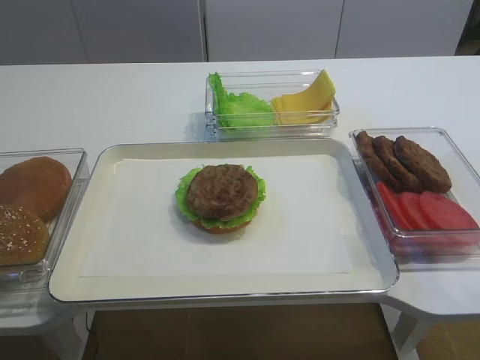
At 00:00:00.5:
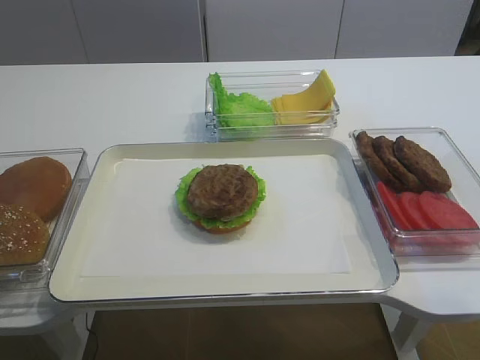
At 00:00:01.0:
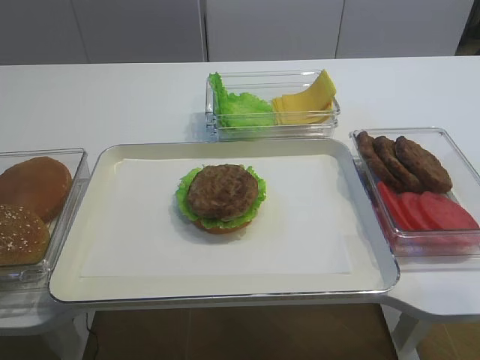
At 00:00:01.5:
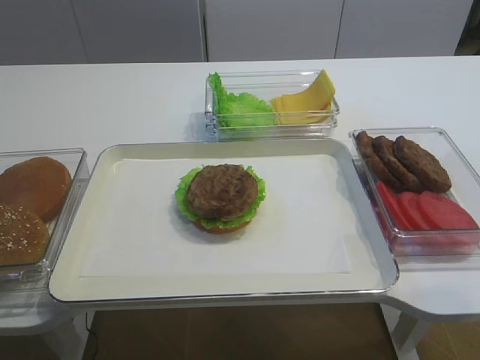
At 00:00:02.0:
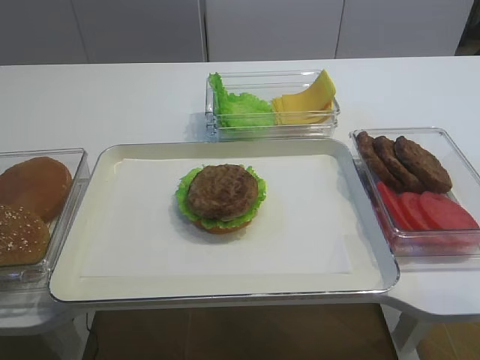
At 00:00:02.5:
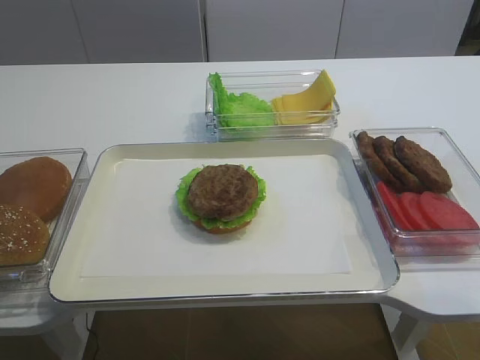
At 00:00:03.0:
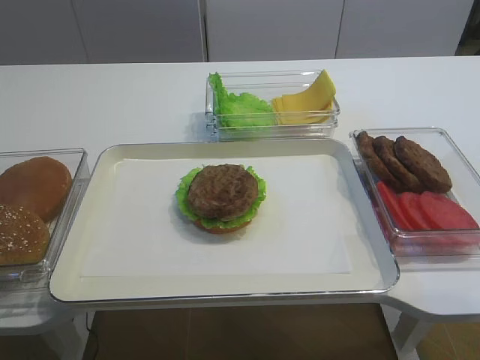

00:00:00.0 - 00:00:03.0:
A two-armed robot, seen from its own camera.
00:00:01.5 - 00:00:03.0: Both grippers stay put.

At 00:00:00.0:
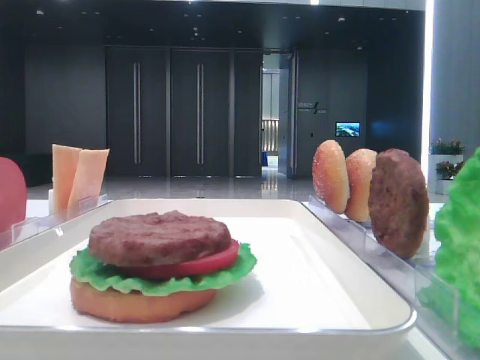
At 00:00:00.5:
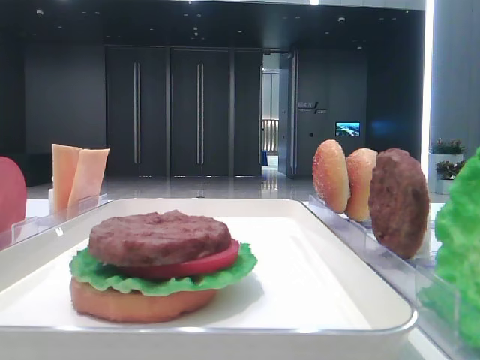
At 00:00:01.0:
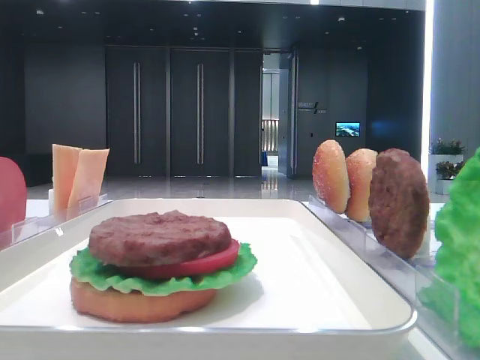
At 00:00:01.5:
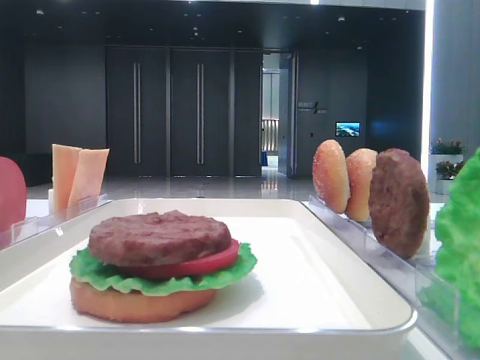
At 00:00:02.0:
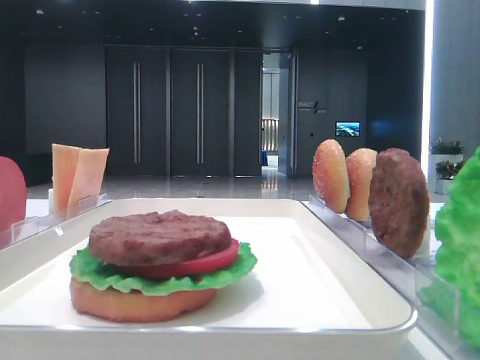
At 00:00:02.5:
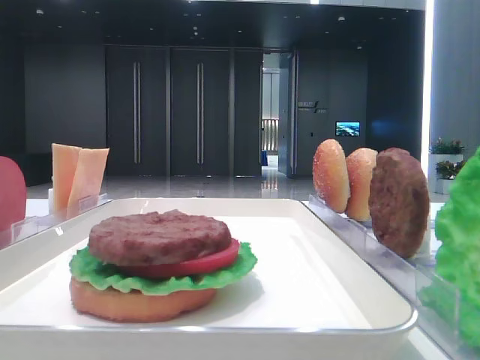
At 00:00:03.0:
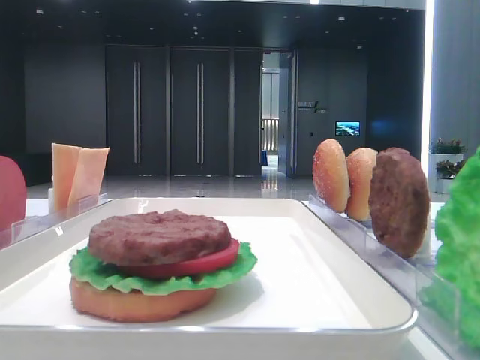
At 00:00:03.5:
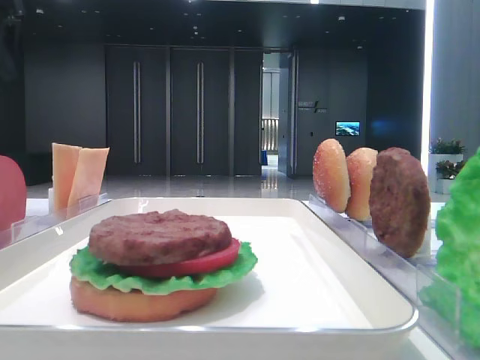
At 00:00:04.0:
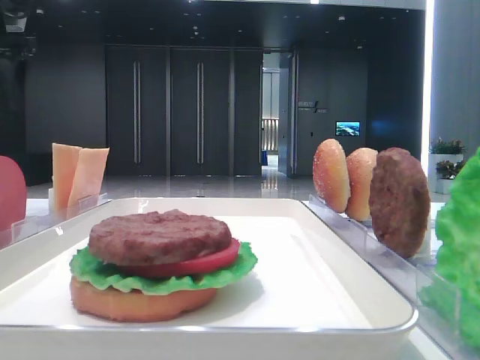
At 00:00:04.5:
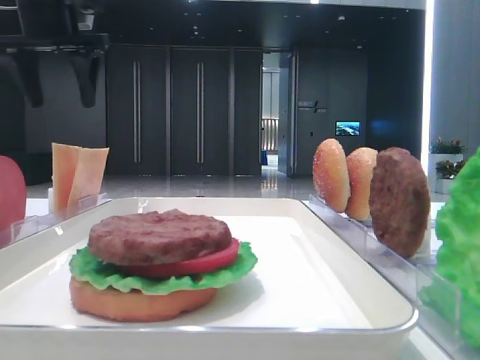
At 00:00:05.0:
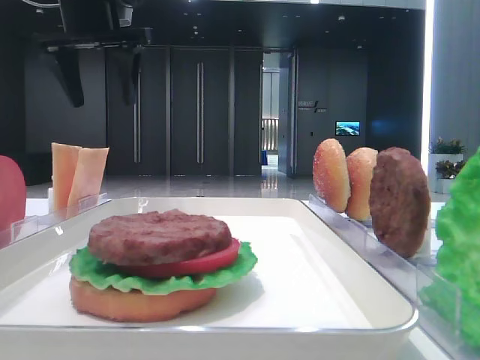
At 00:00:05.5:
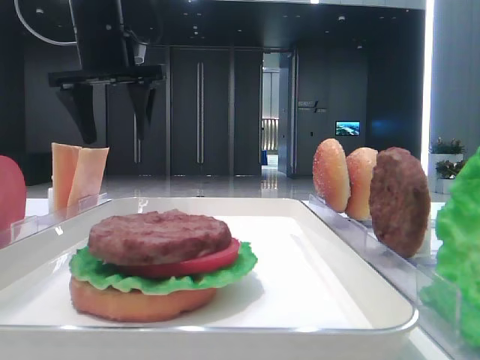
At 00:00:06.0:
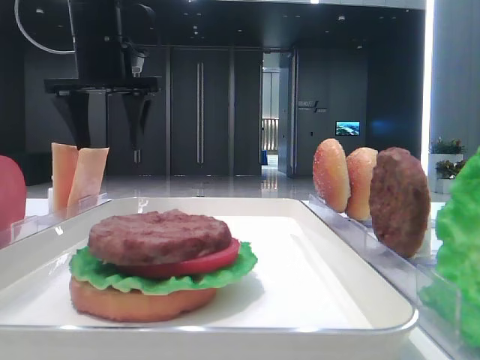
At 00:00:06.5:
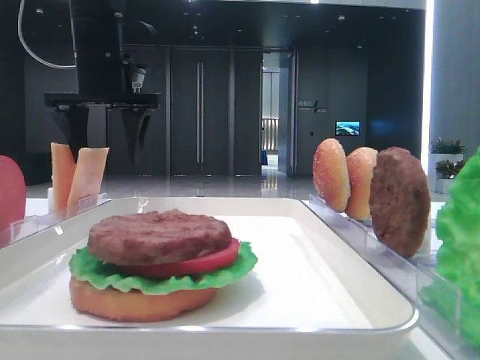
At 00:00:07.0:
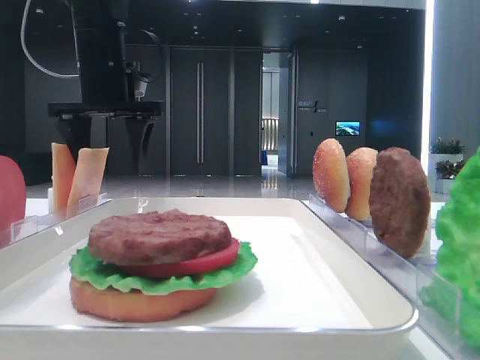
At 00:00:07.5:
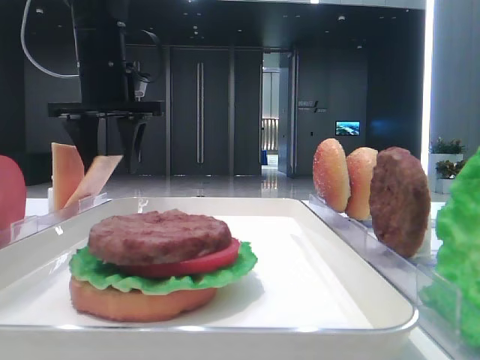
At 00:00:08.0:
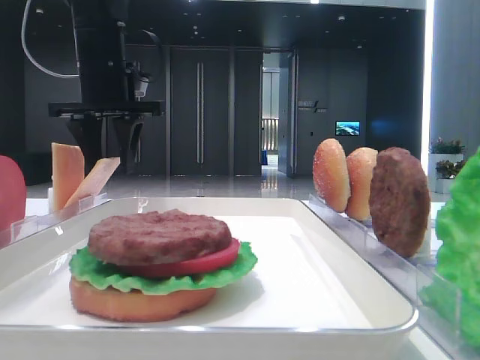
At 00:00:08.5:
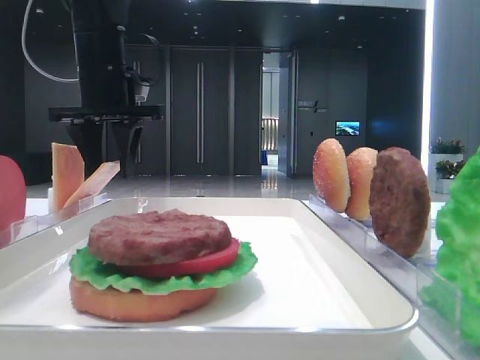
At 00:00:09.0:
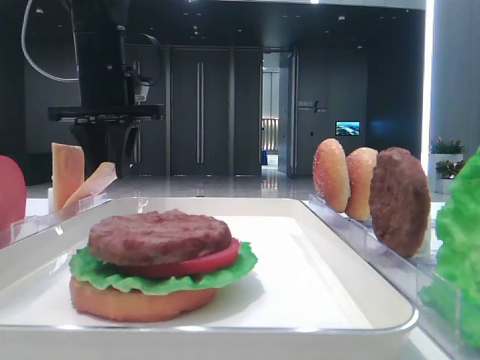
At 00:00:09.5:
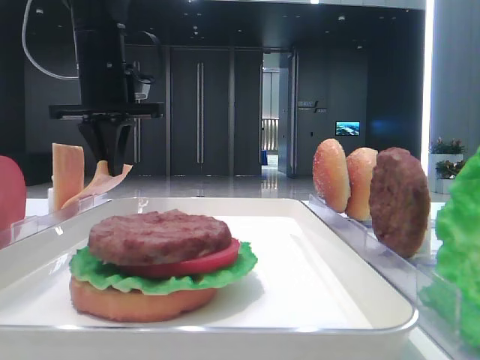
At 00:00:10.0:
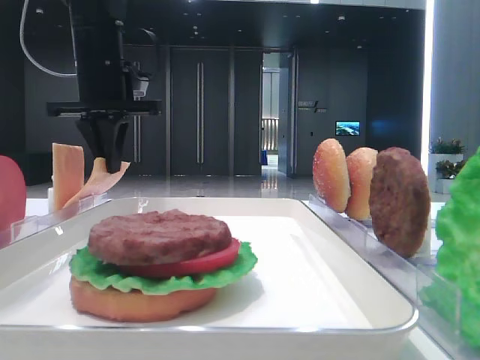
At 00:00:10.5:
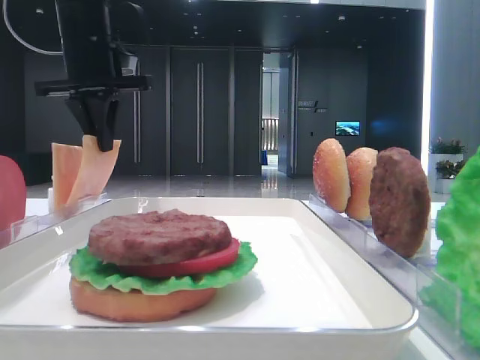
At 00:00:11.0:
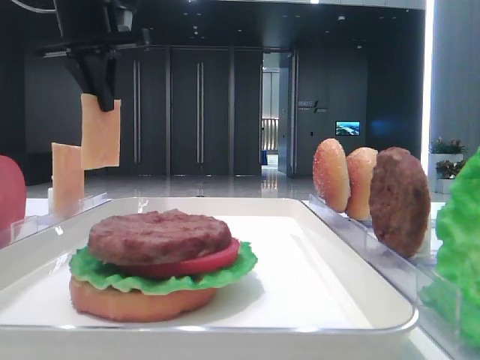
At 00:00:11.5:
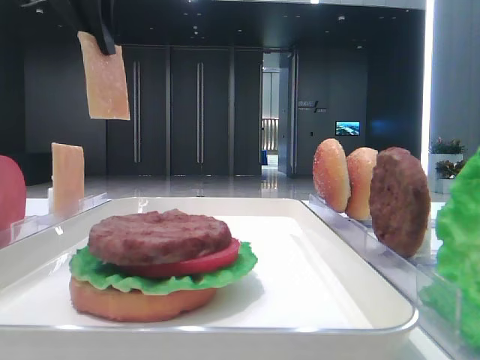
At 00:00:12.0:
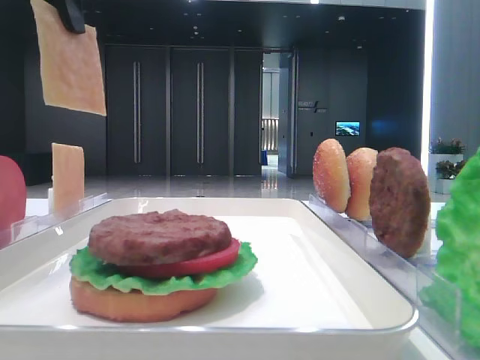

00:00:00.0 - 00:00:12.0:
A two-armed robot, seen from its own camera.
Step, 00:00:00.0 - 00:00:09.0: Pick up the cheese slice with the left hand.
00:00:02.0 - 00:00:04.0: The left gripper heads forward, covering some 30 cm.
00:00:04.0 - 00:00:06.0: The left gripper shifts approximately 15 cm to the right.
00:00:06.0 - 00:00:08.0: The left gripper closes up.
00:00:08.0 - 00:00:10.0: The left gripper closes its fingers.
00:00:10.0 - 00:00:12.0: The left gripper travels backward and upward by approximately 20 cm.

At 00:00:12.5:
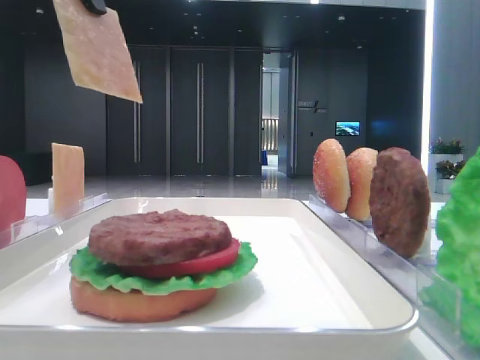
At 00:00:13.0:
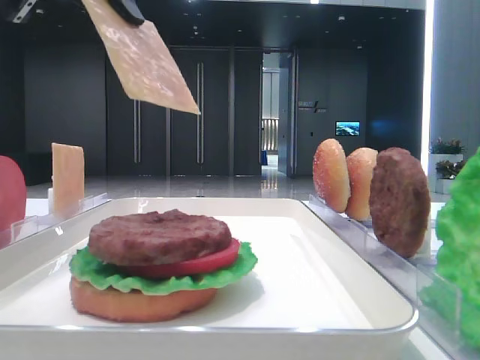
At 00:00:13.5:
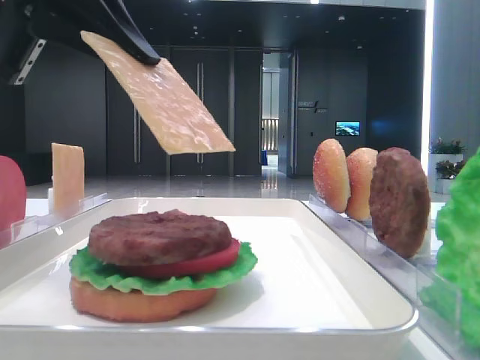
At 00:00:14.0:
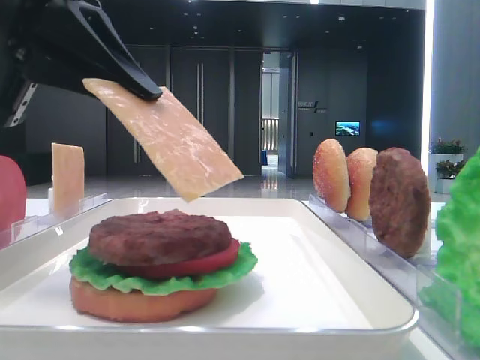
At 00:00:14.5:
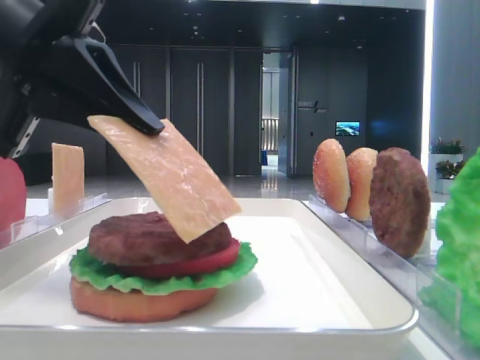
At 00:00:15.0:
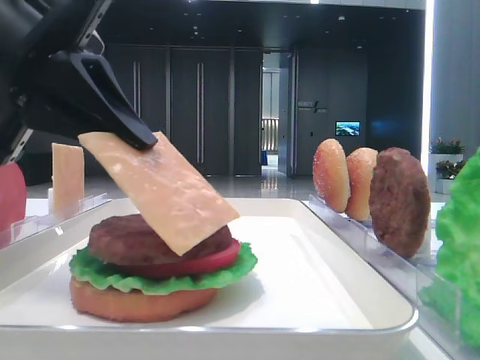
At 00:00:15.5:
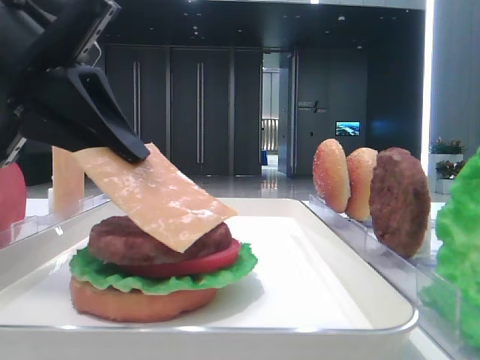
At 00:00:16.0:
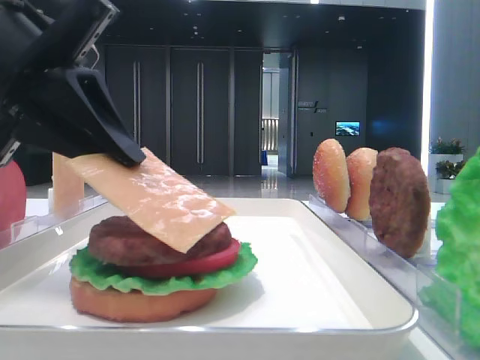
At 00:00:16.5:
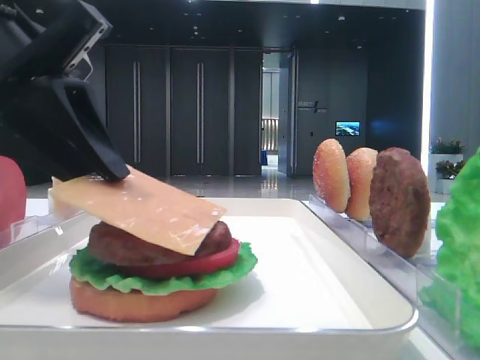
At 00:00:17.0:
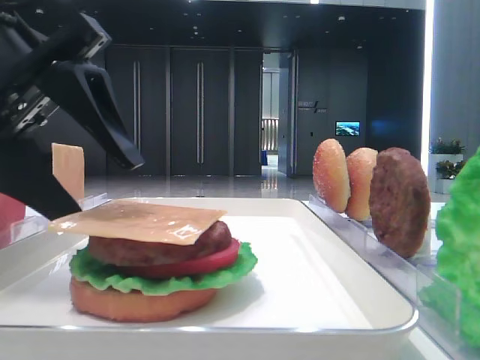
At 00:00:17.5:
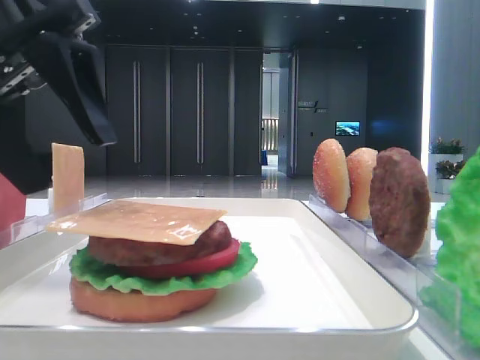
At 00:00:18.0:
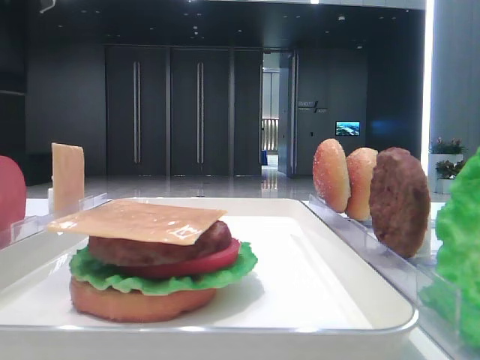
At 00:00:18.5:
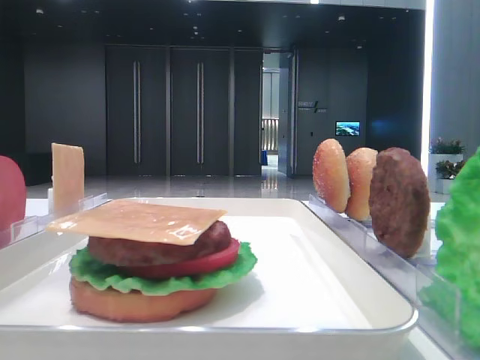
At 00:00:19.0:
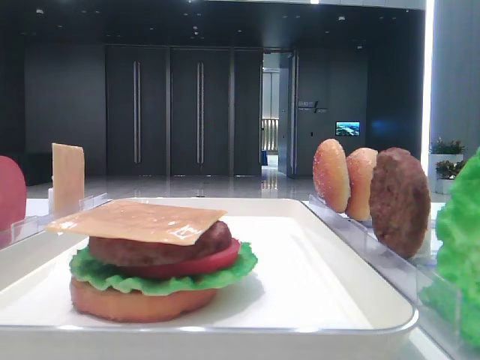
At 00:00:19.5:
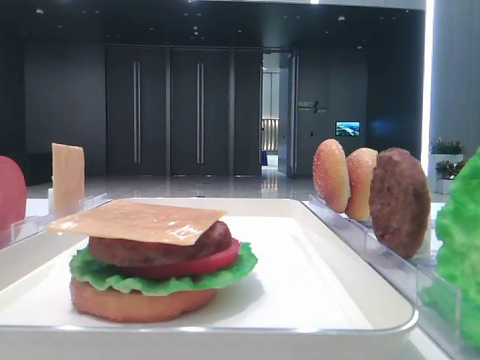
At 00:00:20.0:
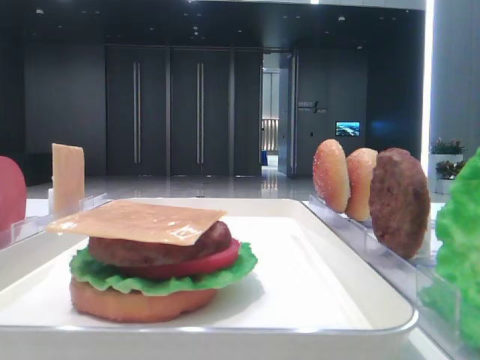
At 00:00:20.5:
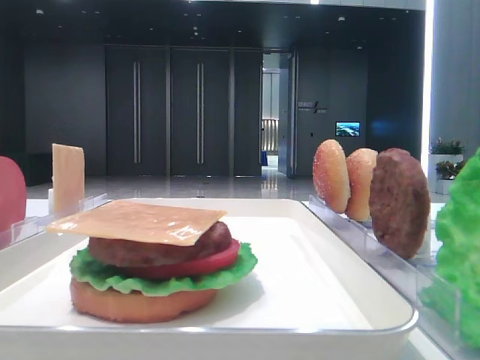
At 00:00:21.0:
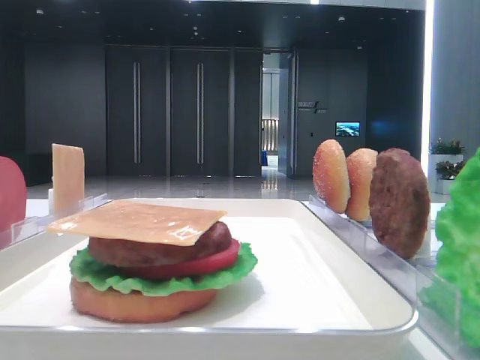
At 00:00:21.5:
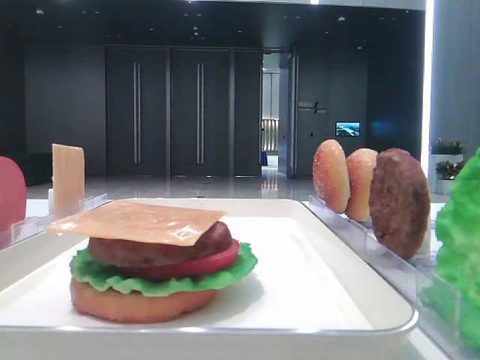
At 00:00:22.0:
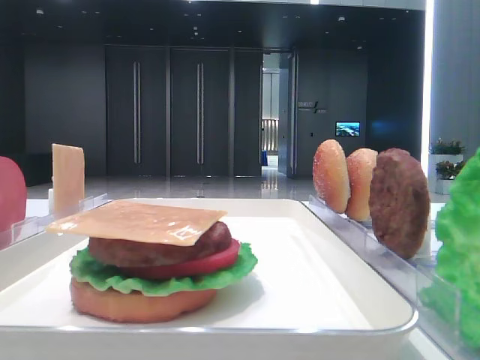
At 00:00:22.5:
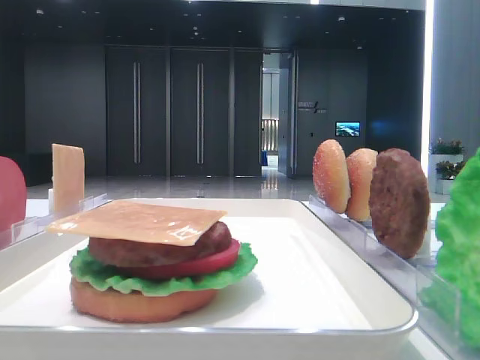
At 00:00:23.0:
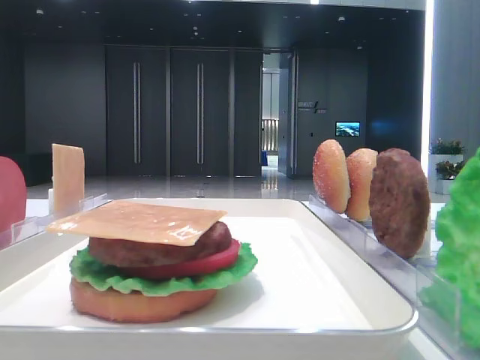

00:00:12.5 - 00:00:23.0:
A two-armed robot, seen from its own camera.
Step, 00:00:12.5 - 00:00:17.0: Place the cheese slice on the patty with the left hand.
00:00:12.5 - 00:00:14.5: The left gripper shifts approximately 15 cm downward and backward.
00:00:14.5 - 00:00:16.5: There are only small adjustments of the grippers.
00:00:16.5 - 00:00:19.0: The left gripper heads to the left and upward, covering roughly 20 cm, and opens up.
